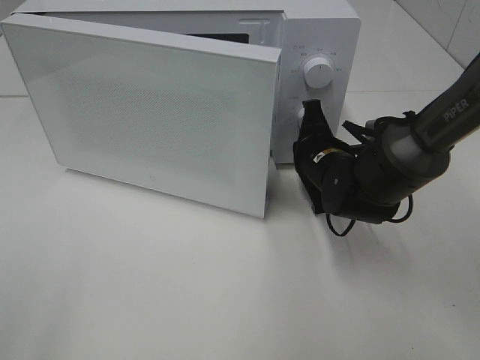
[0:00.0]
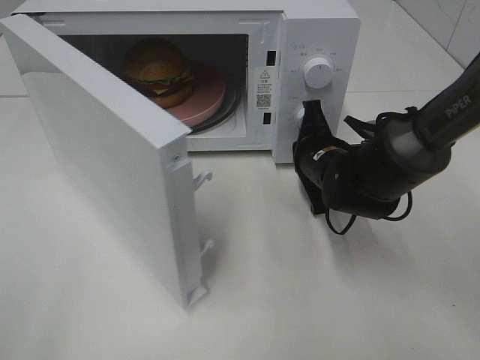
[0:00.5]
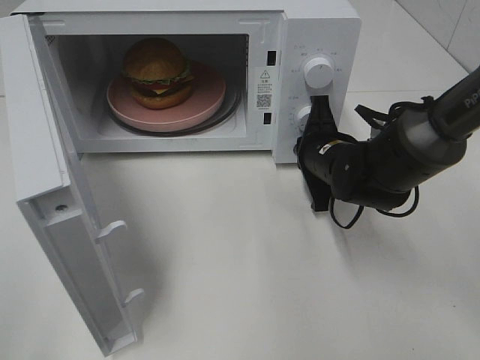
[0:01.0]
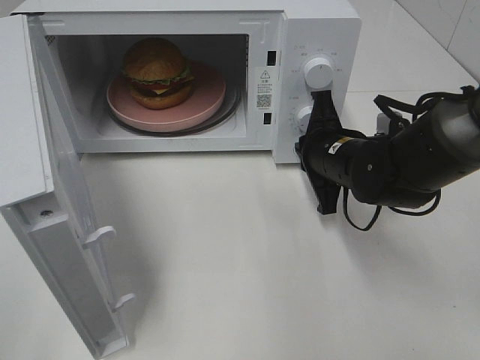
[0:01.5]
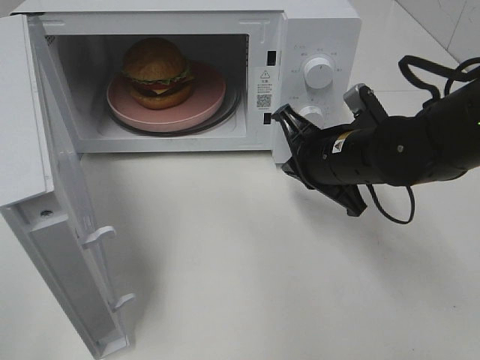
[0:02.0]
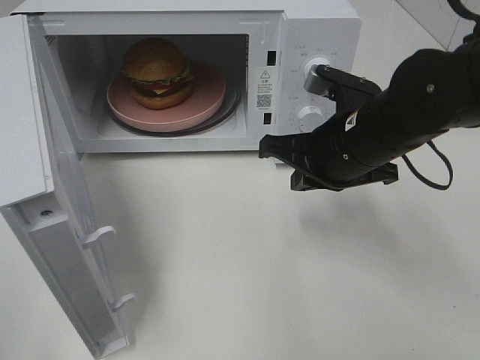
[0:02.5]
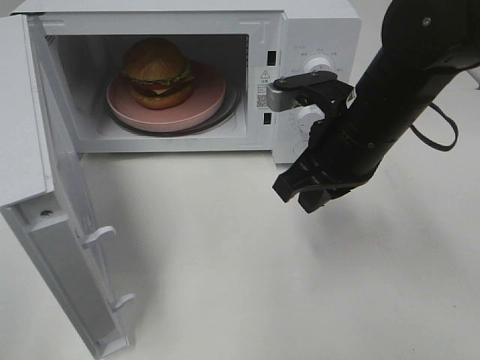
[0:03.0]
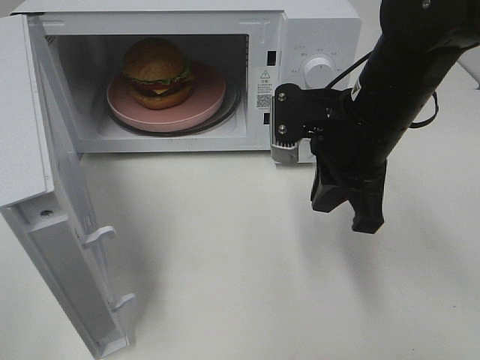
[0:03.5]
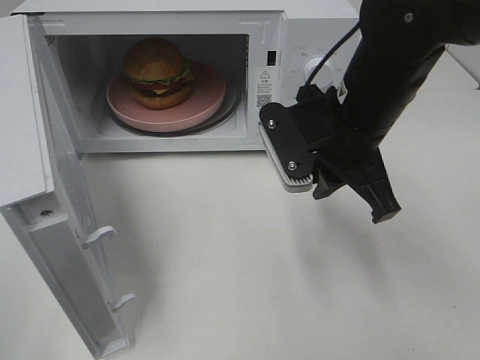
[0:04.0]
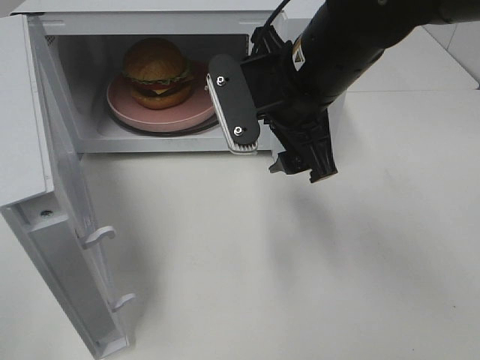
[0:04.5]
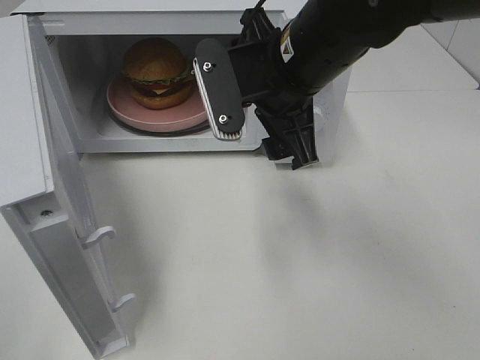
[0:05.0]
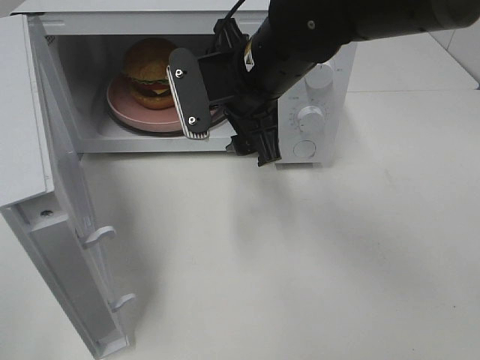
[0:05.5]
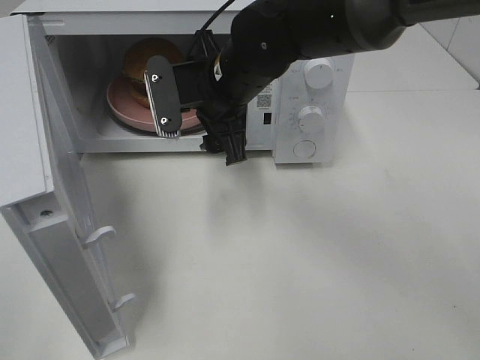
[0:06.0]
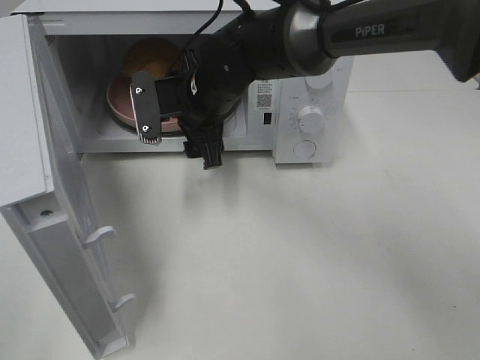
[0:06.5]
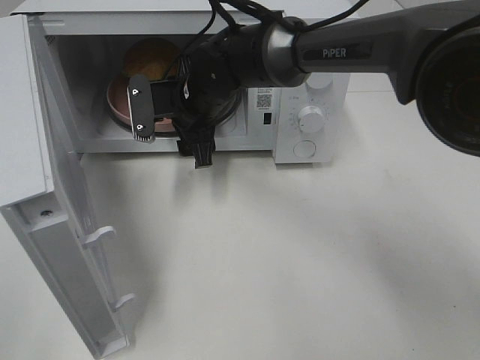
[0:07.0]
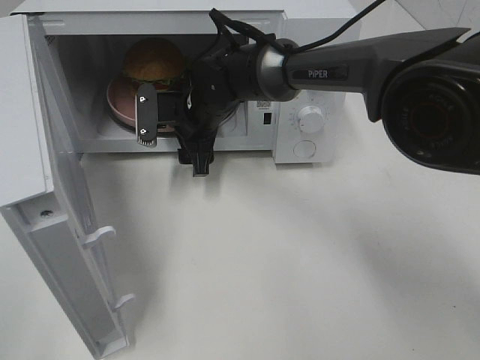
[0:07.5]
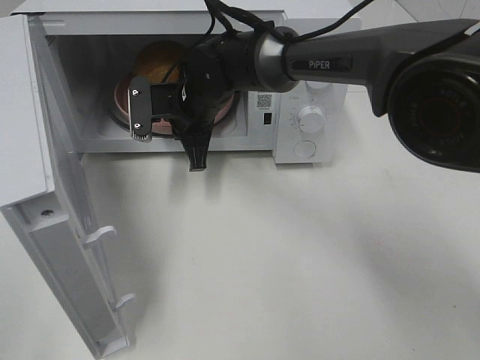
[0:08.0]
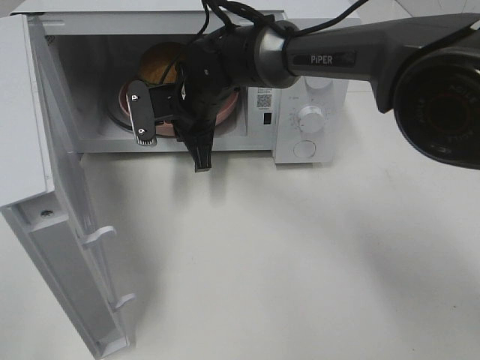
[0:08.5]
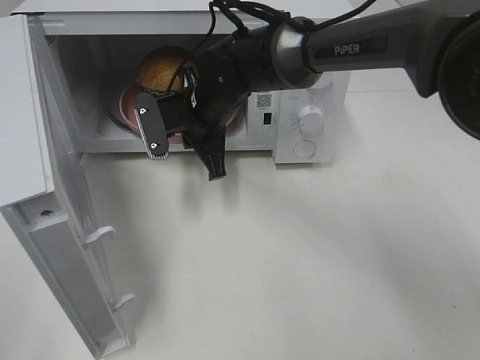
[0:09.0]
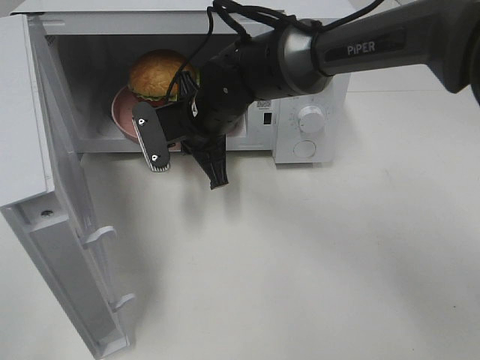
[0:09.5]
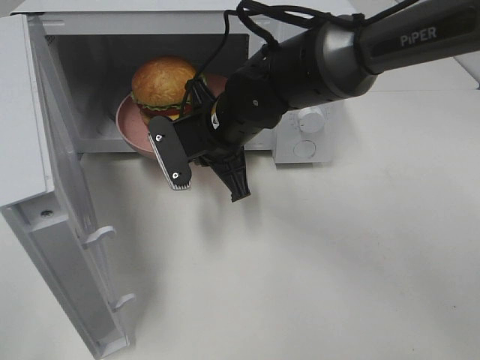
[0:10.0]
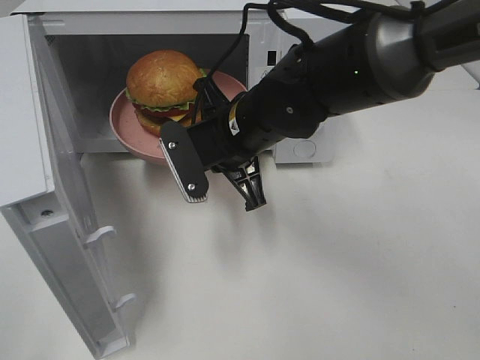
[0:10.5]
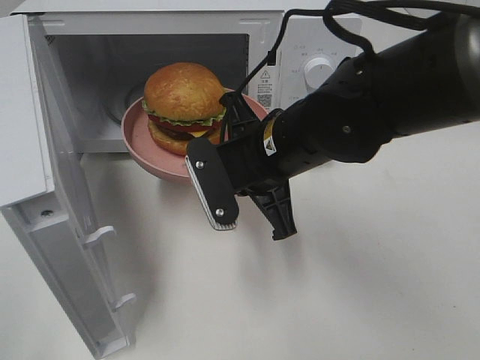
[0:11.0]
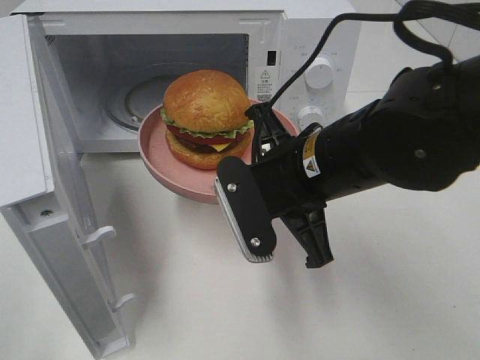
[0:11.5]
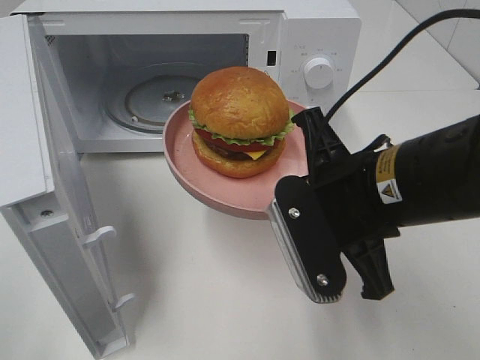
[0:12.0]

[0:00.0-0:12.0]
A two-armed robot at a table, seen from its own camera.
Task of the whole recording: Heat the burger.
Step, 0:01.5 to 0:07.5: Right hand: grab the plate with the hamburger.
0:00.0 to 0:02.0: The right gripper travels upward and backward by roughly 5 cm.
0:02.0 to 0:04.0: The right gripper heads upward, covering approximately 10 cm.
0:04.0 to 0:06.0: The right gripper heads to the left and forward, covering about 15 cm, and opens.
0:06.0 to 0:08.0: The right gripper is displaced downward and forward by roughly 10 cm, and closes.
0:08.0 to 0:10.0: The right gripper goes about 10 cm backward.
0:10.0 to 0:12.0: The right gripper is displaced backward and to the right by roughly 20 cm.

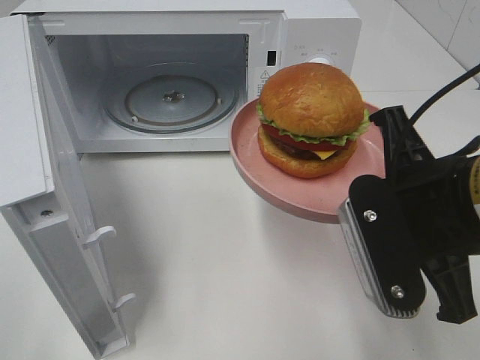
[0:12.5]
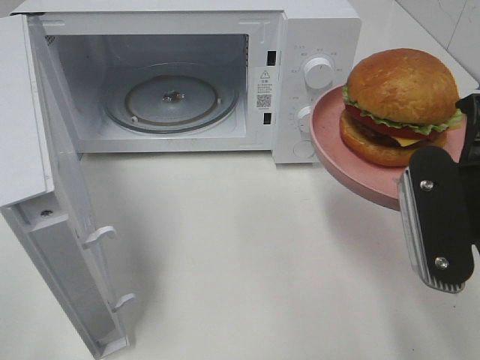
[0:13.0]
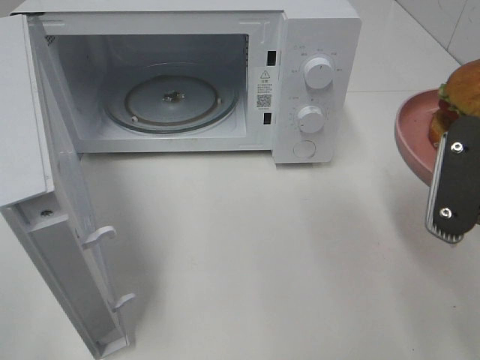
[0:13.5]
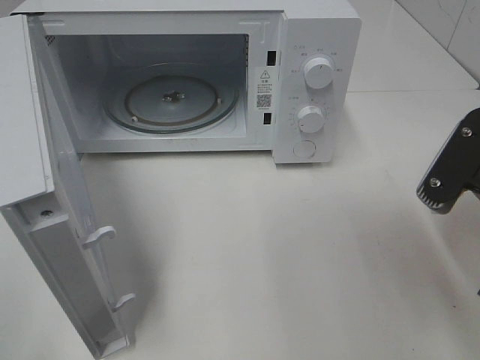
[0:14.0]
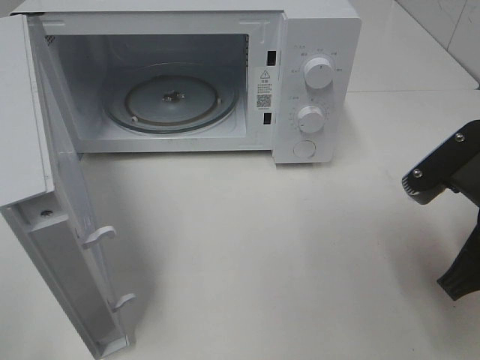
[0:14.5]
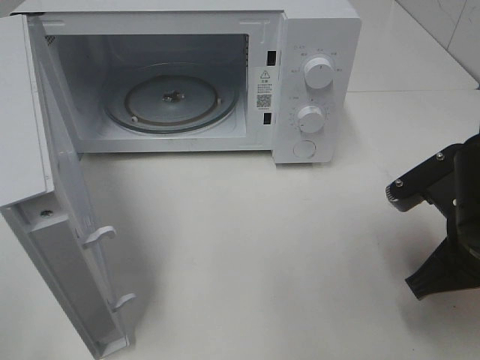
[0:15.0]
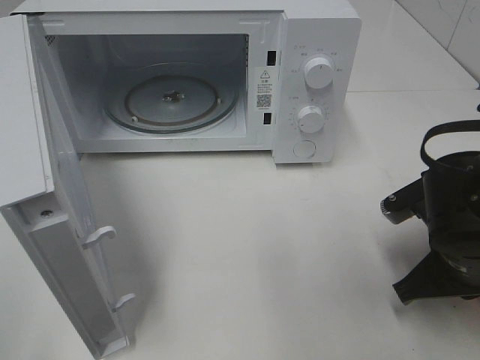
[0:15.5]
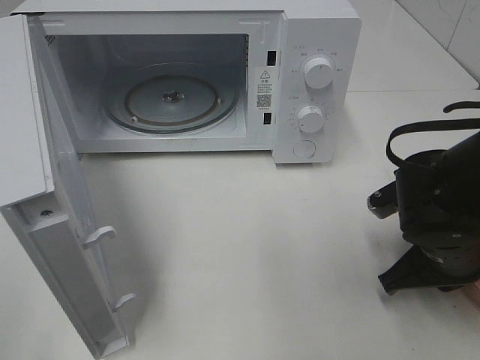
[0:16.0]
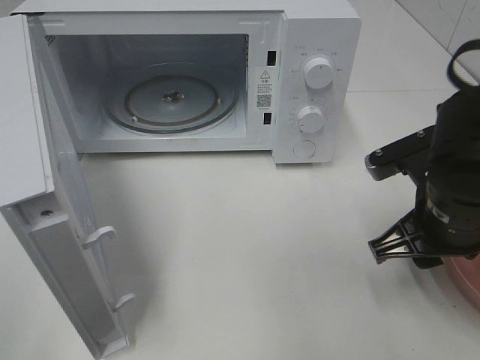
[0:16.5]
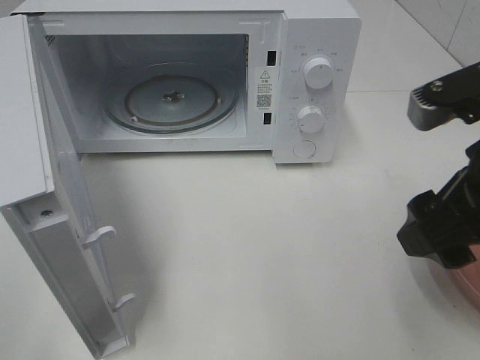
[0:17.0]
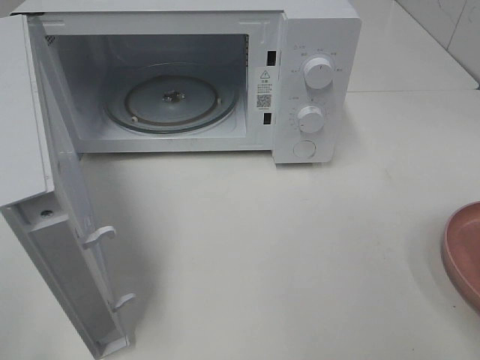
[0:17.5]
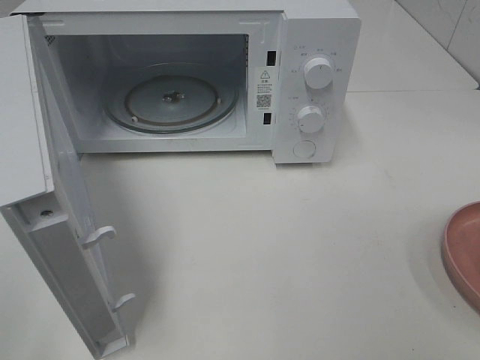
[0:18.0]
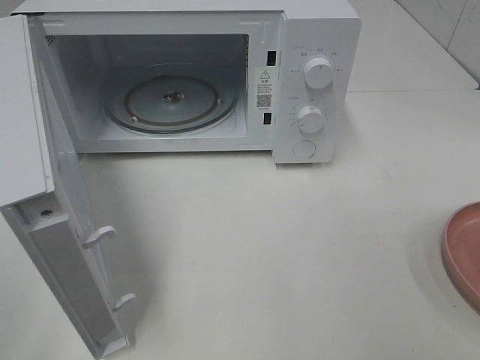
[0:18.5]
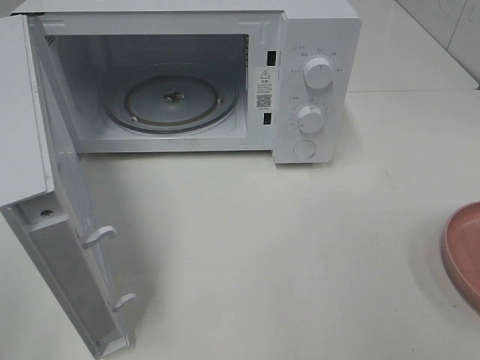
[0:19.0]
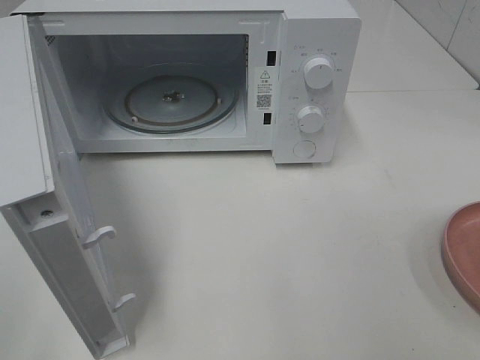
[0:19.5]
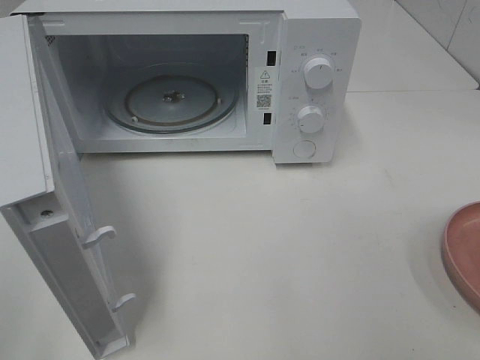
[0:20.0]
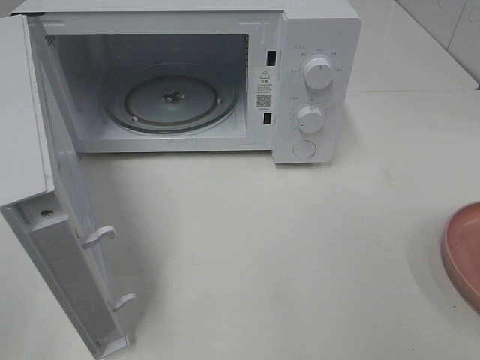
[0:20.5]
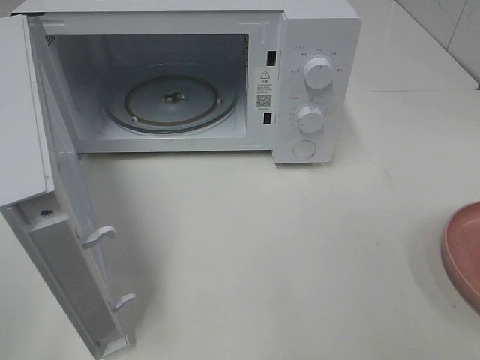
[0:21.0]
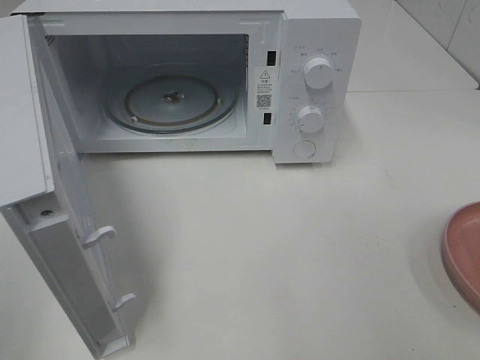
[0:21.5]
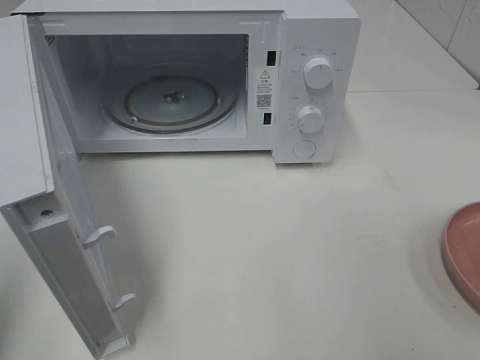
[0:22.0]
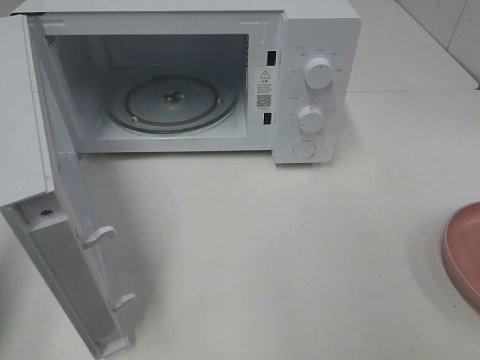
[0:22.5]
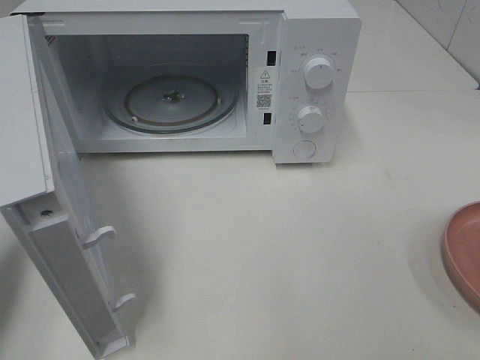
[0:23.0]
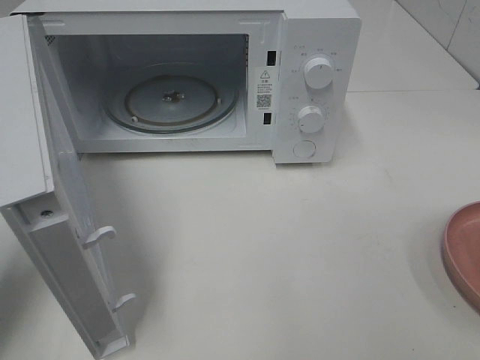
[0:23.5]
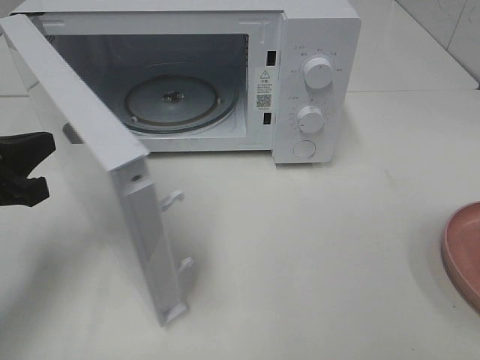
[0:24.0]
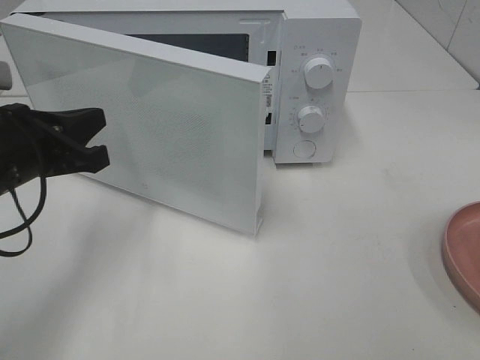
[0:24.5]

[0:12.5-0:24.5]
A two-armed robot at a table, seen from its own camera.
Task of the whole recording: Heat the burger.
Step, 0:12.5 to 0:16.0: Right hand: place the plate on the table.
0:12.5 to 0:14.5: The right gripper changes place by about 5 cm.
0:14.5 to 0:16.5: The right gripper moves about 10 cm downward and comes back, and opens its fingers.
0:16.5 to 0:18.5: The right gripper is displaced backward, upward and to the right by roughly 25 cm.
0:20.5 to 0:22.5: The left gripper is displaced forward by approximately 15 cm, and closes its fingers.
0:22.5 to 0:24.5: The left gripper heads forward, to the right and downward, covering roughly 20 cm.

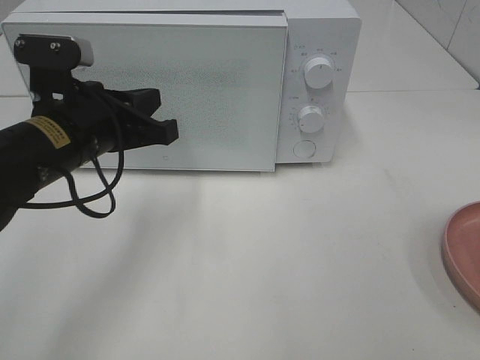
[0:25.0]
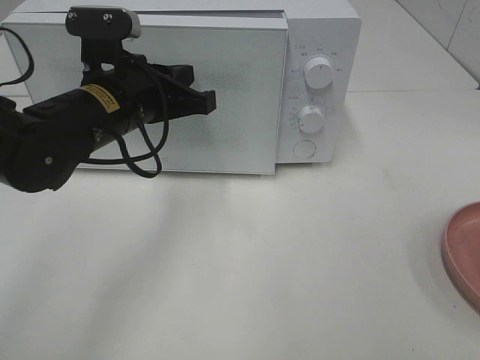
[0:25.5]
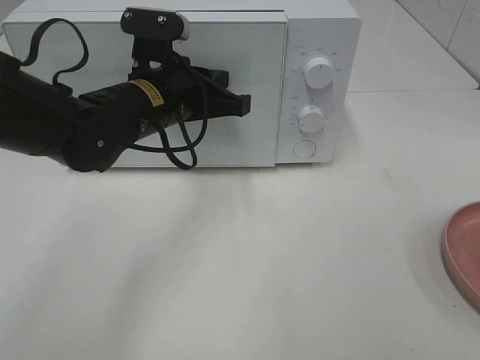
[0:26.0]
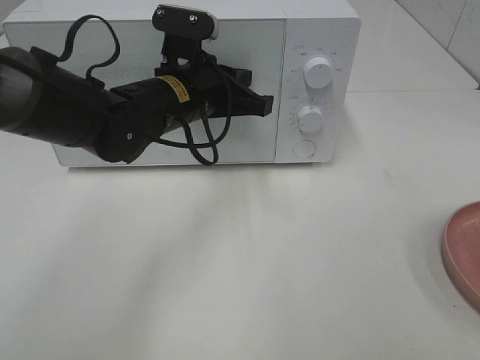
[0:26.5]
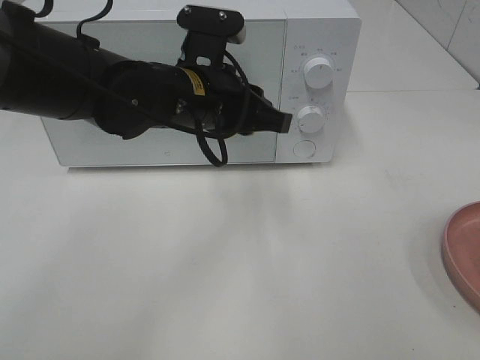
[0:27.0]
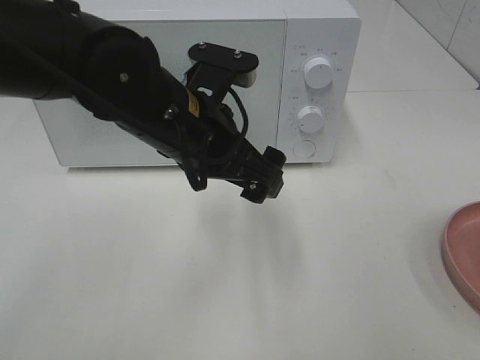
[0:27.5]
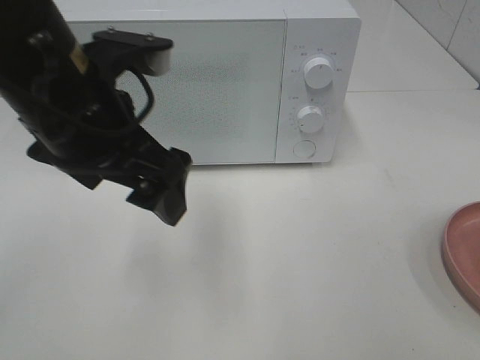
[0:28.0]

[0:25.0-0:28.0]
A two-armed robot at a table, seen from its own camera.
Task of the whole recording: Heat the burger.
0:25.0 to 0:26.5: The left gripper travels to the right and forward by about 10 cm.
0:26.5 to 0:28.0: The left gripper moves backward, upward and to the left, some 15 cm, and opens up.
